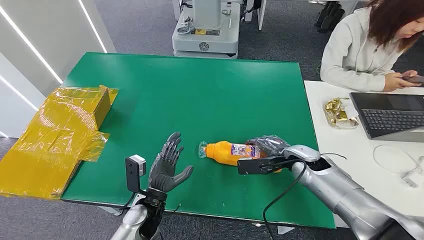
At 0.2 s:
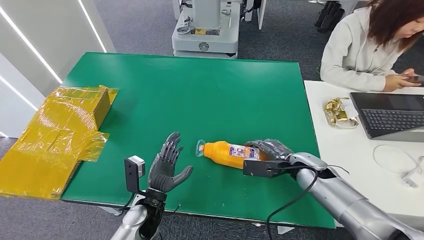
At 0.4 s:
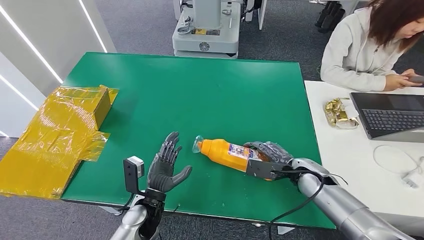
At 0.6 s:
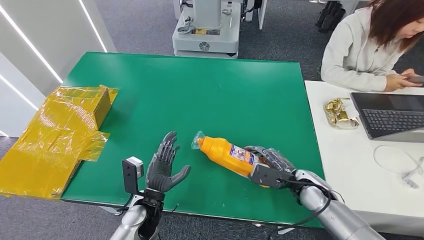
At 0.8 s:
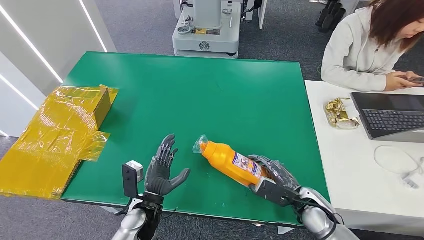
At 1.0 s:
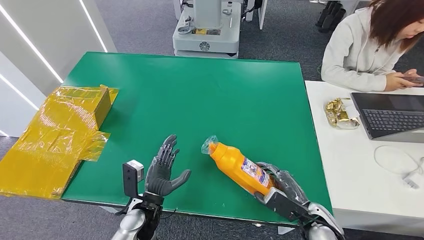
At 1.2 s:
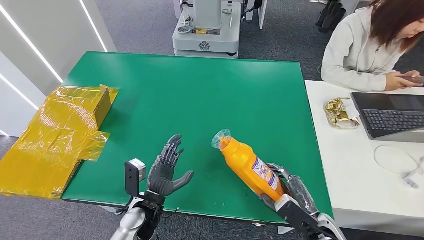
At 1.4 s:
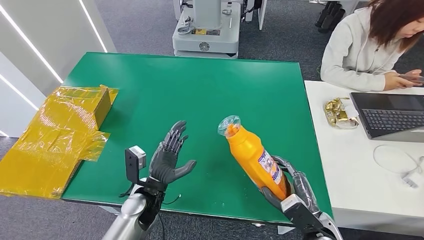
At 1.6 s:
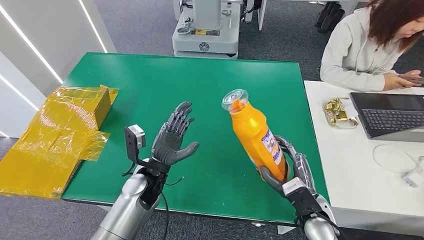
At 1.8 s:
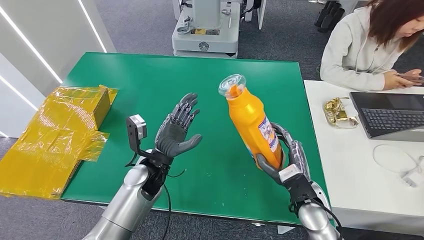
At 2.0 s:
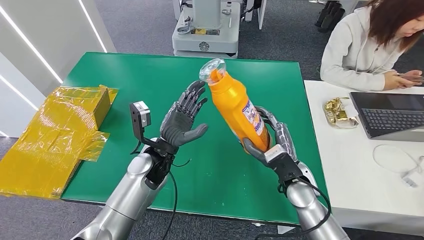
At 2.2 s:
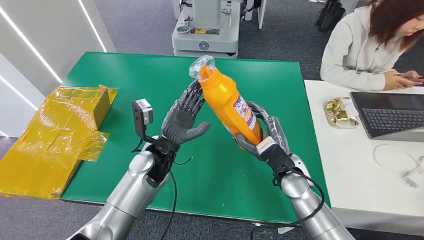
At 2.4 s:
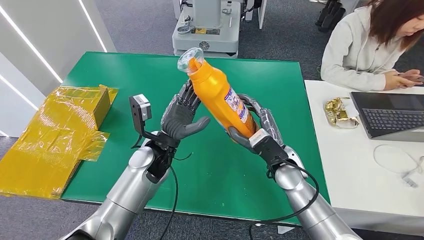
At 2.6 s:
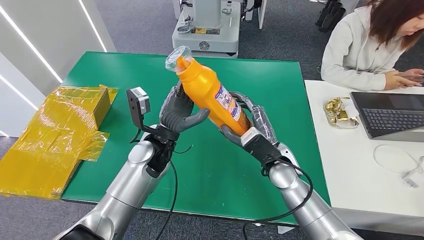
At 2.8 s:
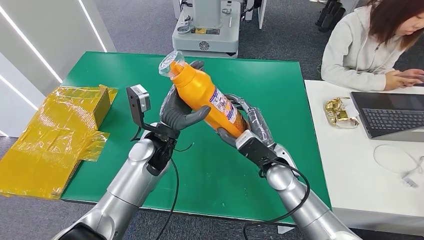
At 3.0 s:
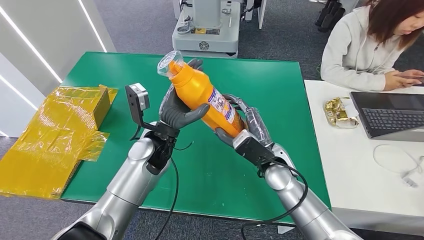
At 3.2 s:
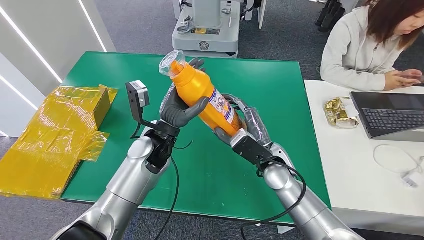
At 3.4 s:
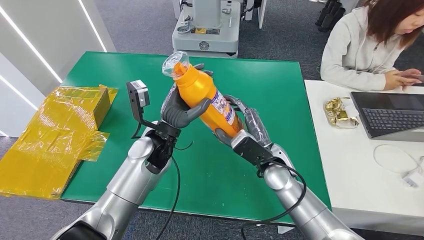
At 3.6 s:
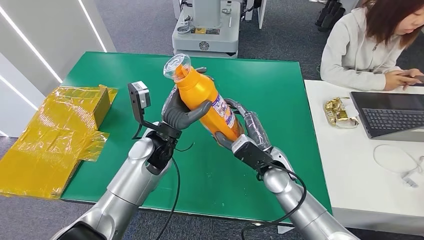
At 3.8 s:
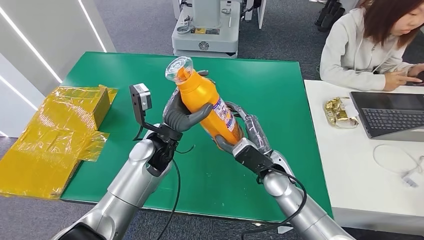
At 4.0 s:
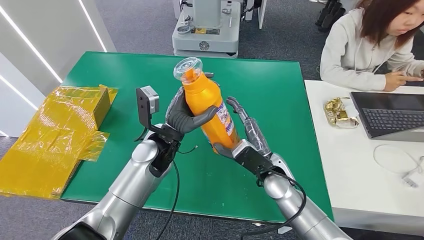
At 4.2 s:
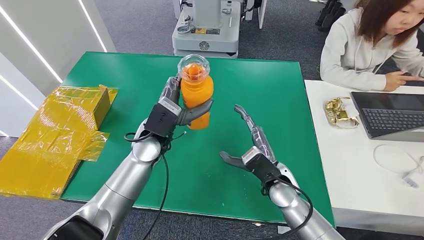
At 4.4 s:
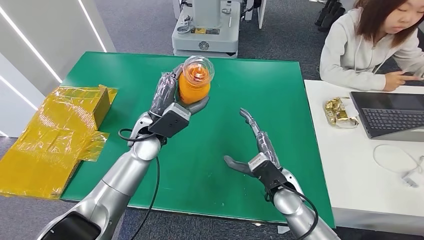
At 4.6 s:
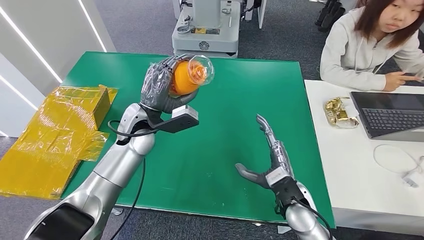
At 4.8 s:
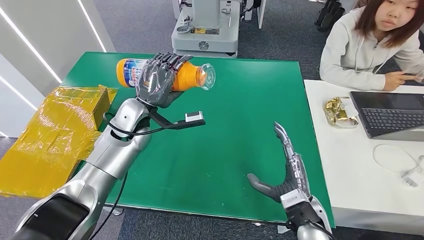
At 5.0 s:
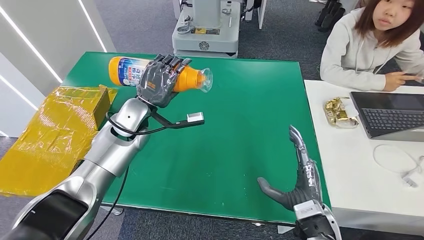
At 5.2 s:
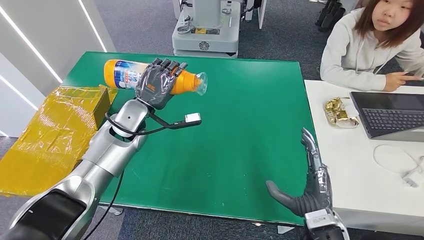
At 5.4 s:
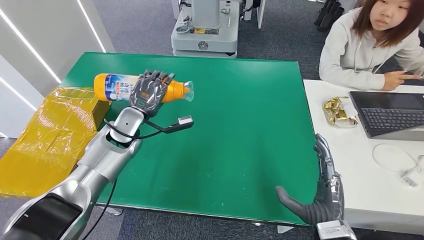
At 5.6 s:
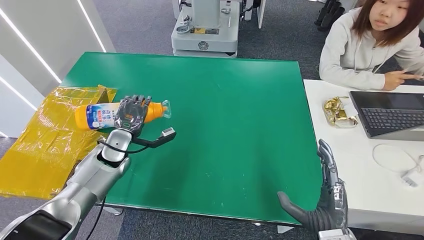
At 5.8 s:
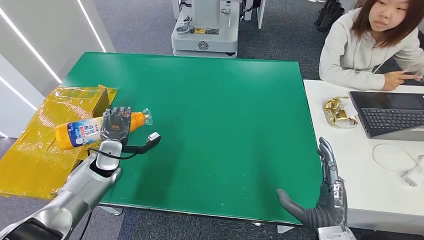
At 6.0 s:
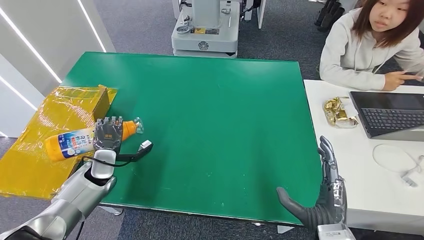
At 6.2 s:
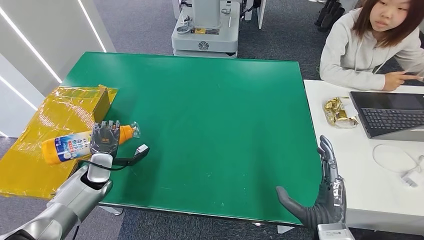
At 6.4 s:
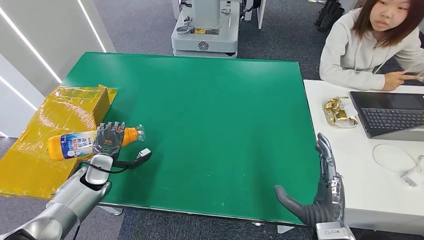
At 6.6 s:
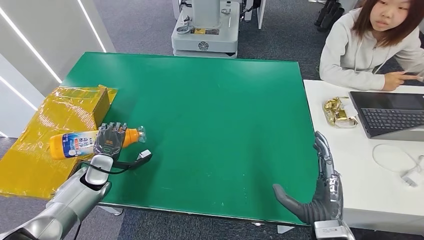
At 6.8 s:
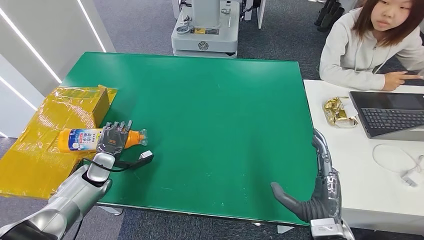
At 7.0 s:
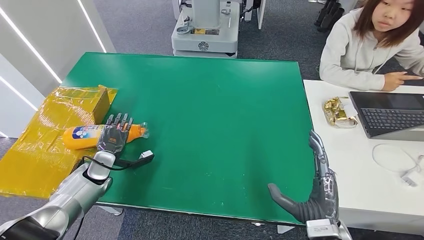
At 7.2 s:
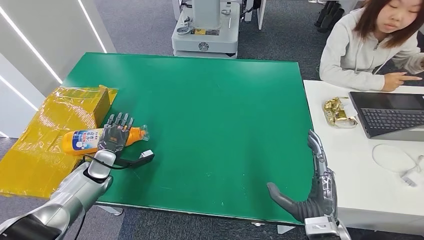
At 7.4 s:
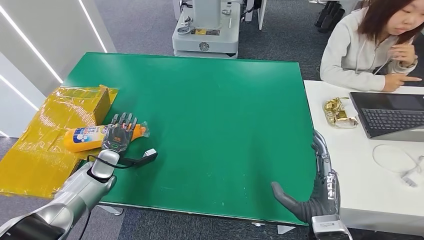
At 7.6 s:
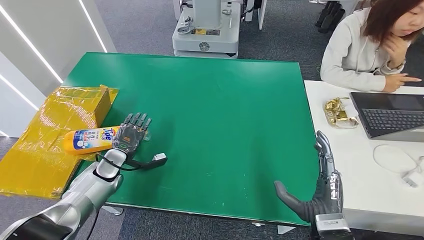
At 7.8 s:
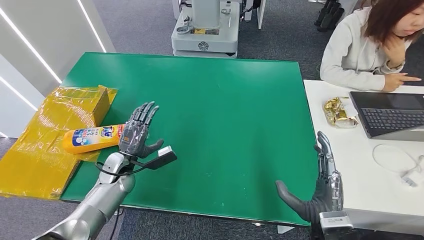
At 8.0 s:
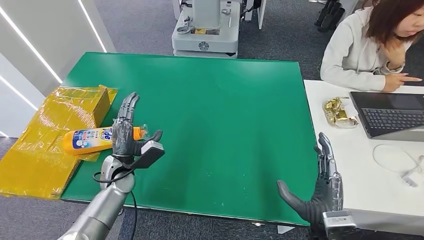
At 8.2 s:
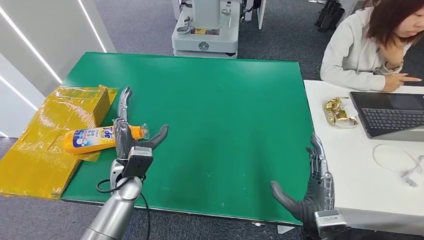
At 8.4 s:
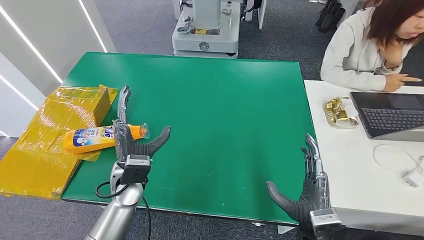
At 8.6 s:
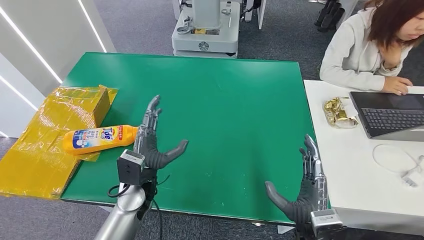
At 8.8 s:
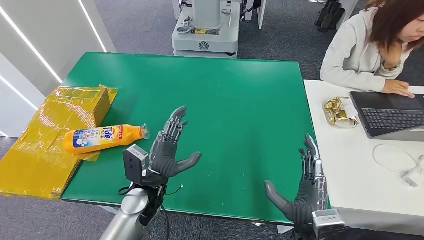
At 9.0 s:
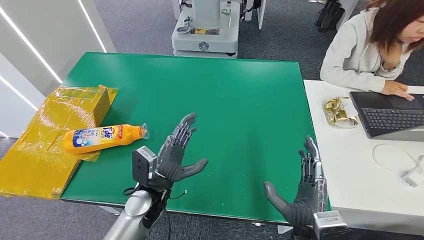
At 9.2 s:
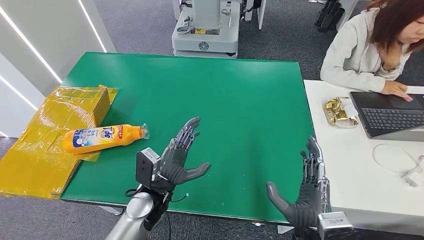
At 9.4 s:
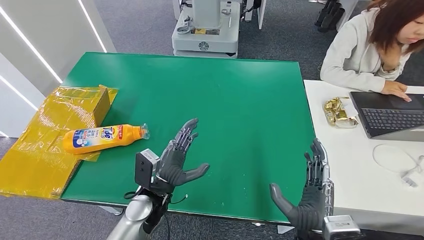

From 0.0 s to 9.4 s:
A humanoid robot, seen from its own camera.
Step, from 0.0 s to 2.4 s: Pick up the bottle from the table.
Step, from 2.6 s to 9.4 s: Turn the bottle to the front side.
From 1.6 s to 3.2 s: The left hand moves upward and forward, about 10 cm; the right hand shifts some 15 cm forward, to the left and upward.
From 4.8 s to 6.2 s: The left hand heads downward, to the left and backward, covering roughly 25 cm, while the right hand heads backward, covering approximately 5 cm.
From 6.2 s to 7.8 s: The left hand is displaced to the right by approximately 5 cm.
From 7.8 s to 9.4 s: The left hand travels to the right and backward by approximately 20 cm.

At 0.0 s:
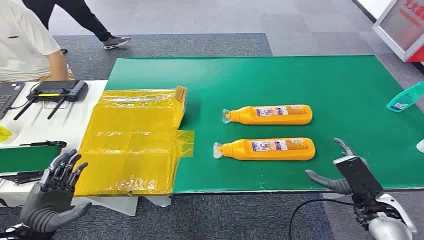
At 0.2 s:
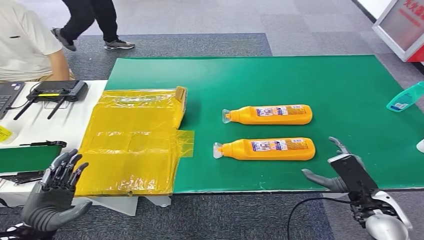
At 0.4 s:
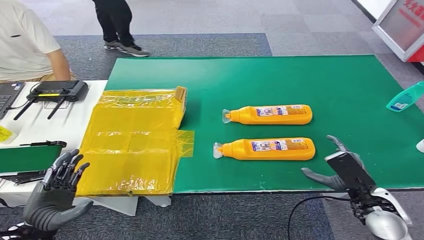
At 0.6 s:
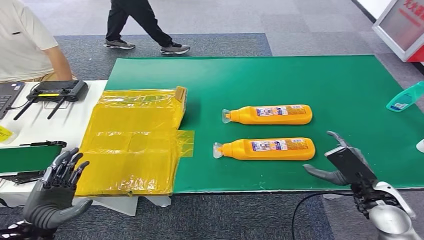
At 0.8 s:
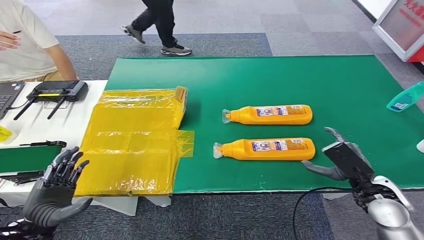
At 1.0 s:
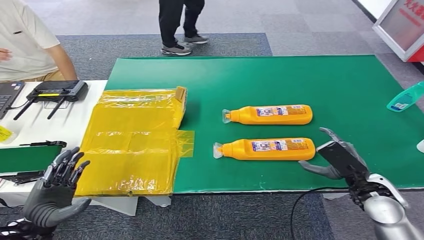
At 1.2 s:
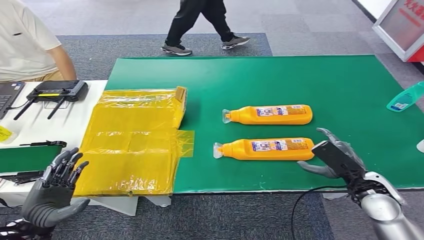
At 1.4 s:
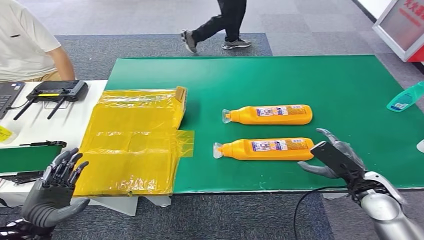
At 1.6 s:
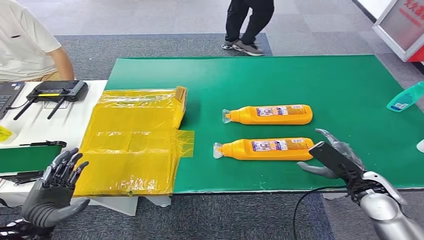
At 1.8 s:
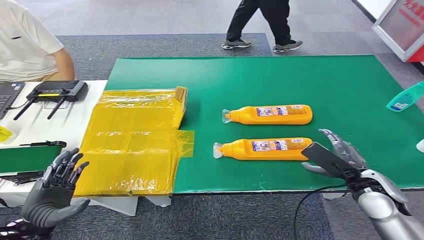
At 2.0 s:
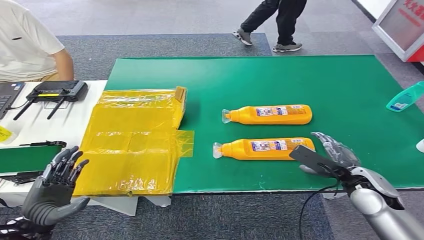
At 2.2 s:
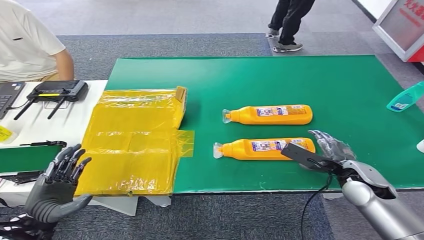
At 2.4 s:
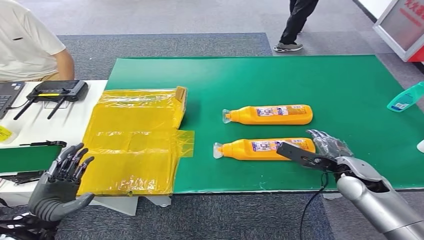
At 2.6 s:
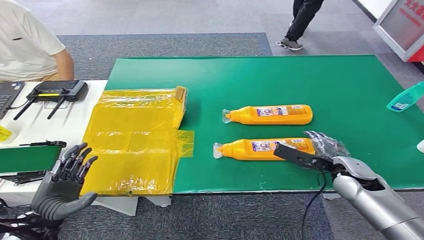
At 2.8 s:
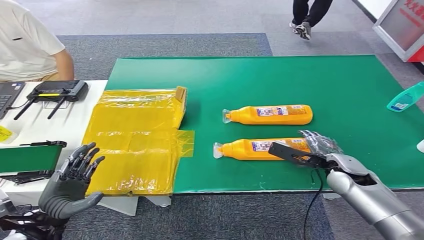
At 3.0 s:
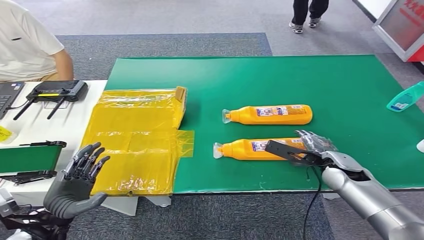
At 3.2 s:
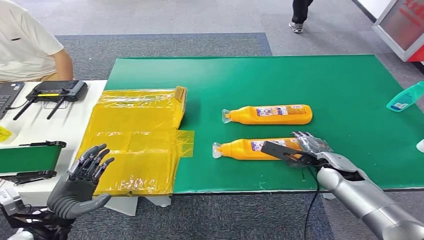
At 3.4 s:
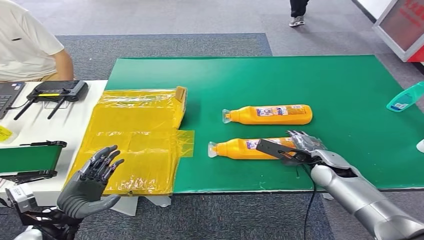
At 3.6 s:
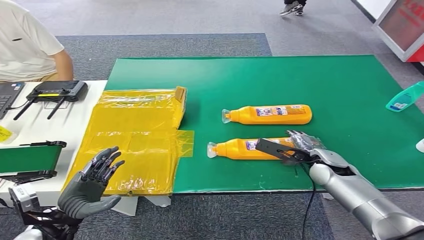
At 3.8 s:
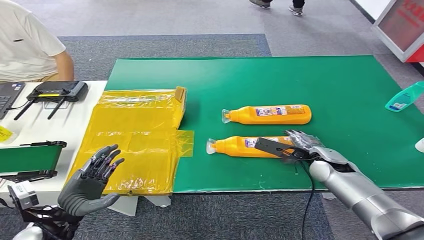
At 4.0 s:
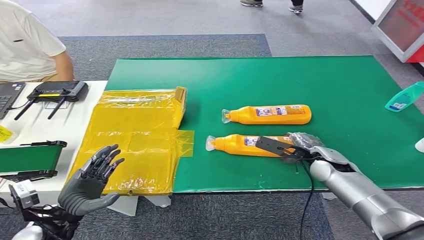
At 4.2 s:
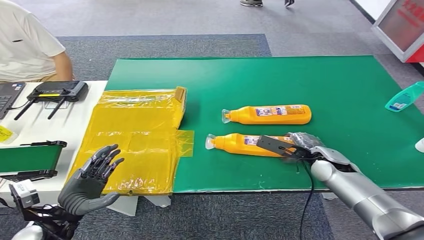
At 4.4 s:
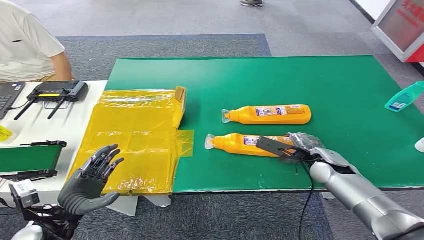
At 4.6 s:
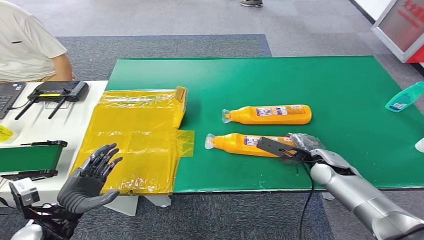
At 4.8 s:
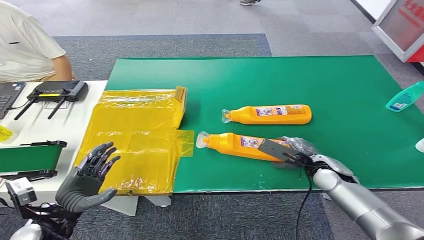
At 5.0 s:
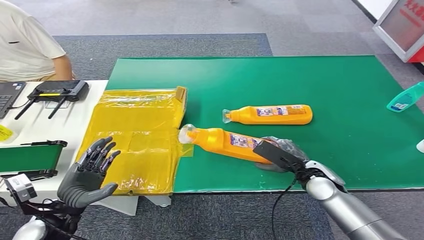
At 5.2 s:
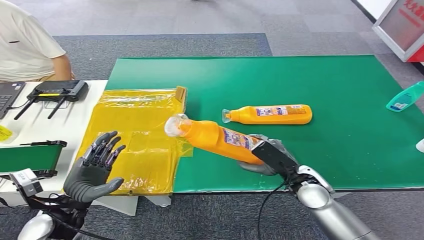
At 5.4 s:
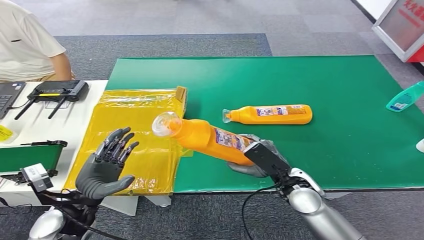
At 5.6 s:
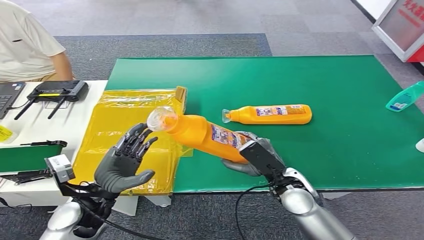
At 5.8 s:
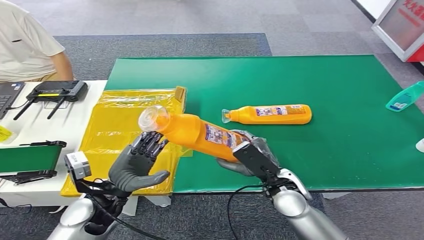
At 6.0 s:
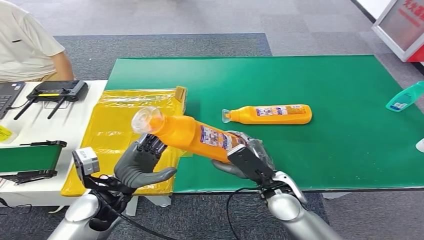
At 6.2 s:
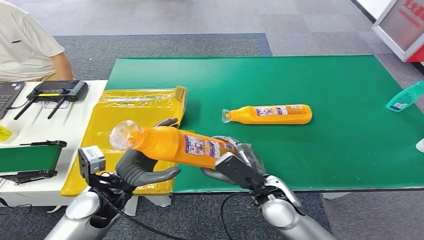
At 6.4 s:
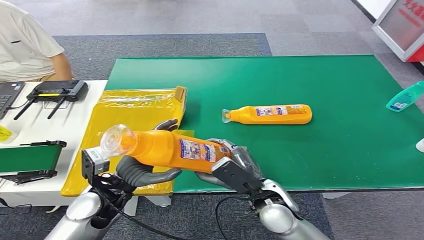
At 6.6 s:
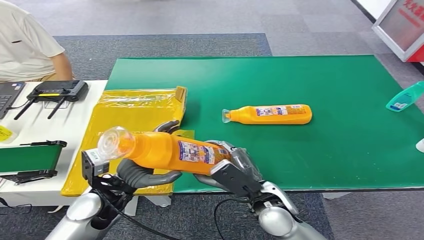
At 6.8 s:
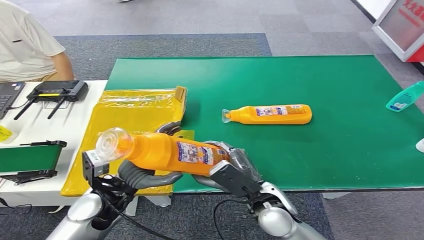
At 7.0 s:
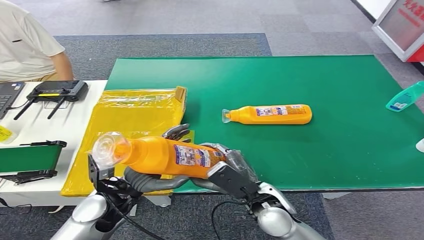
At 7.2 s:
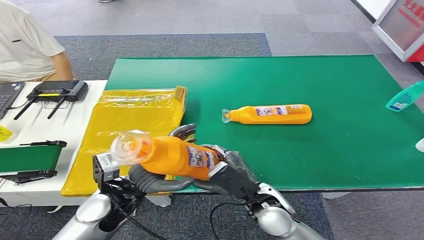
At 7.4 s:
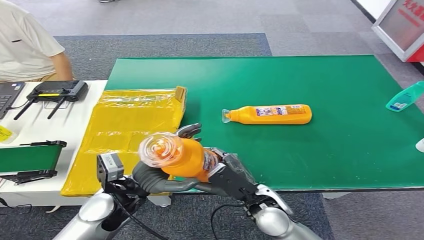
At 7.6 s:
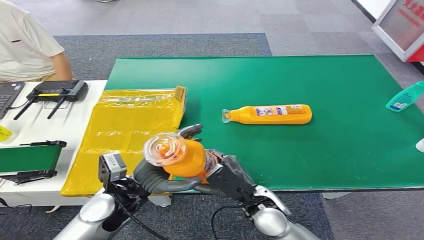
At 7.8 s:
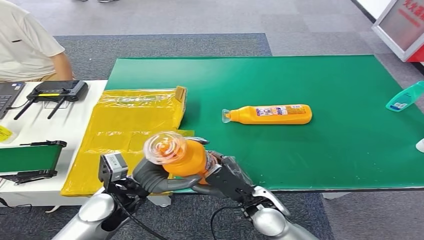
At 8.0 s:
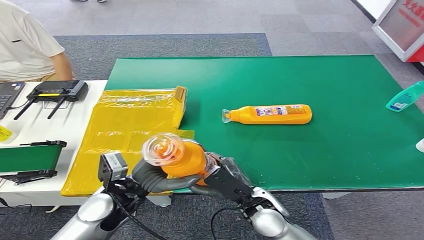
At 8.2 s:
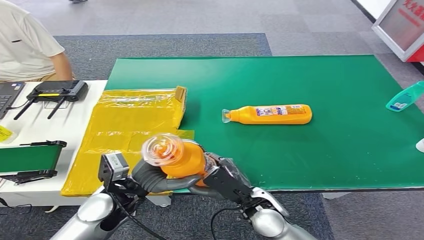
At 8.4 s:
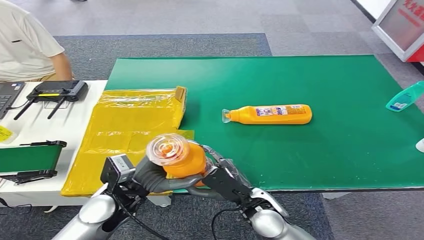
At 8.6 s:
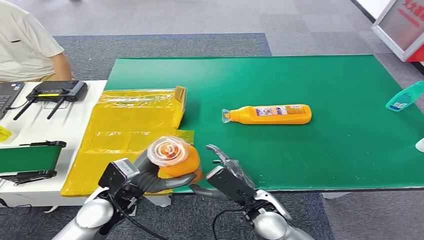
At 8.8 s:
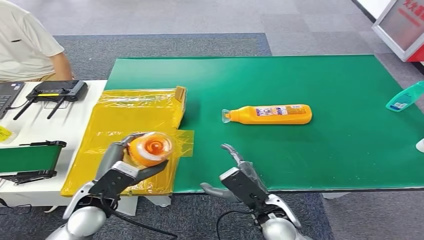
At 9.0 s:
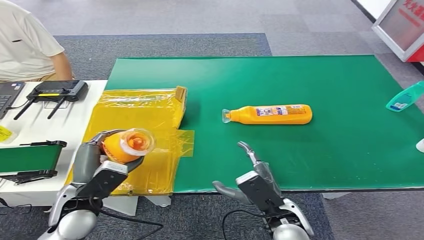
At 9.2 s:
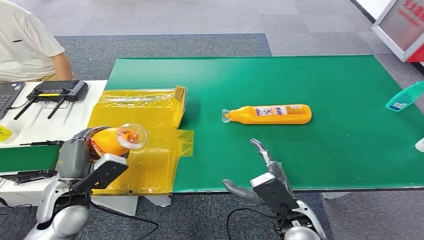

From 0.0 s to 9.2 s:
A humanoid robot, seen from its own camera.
Step, from 0.0 s to 6.6 s: Pick up the bottle from the table.
From 1.6 s to 3.0 s: The right hand shifts some 10 cm forward.
From 3.0 s to 4.6 s: There are only small adjustments of the hands.
From 6.2 s to 7.6 s: There are only small adjustments of the hands.
From 7.6 s to 9.2 s: The left hand heads to the left, covering about 10 cm; the right hand moves to the right, some 5 cm.
